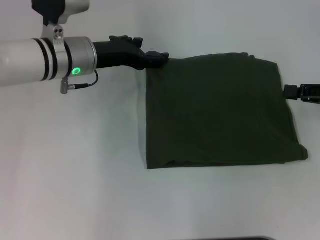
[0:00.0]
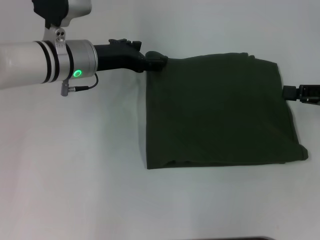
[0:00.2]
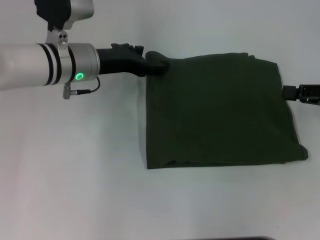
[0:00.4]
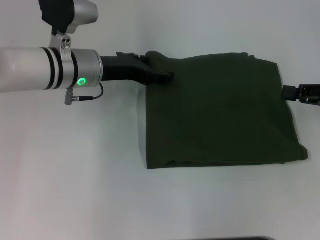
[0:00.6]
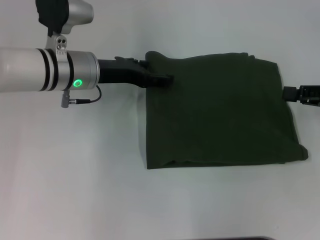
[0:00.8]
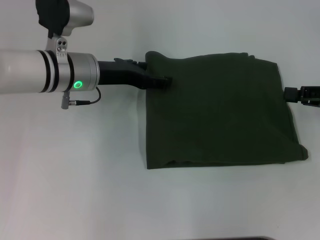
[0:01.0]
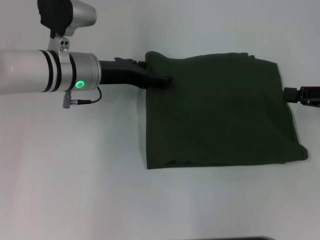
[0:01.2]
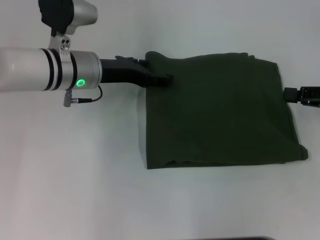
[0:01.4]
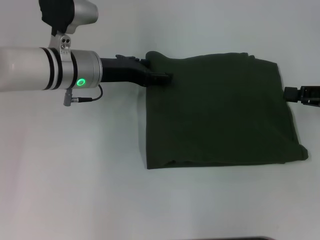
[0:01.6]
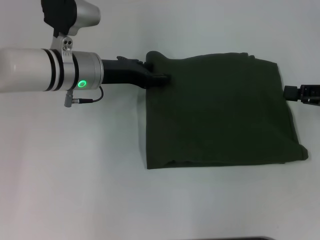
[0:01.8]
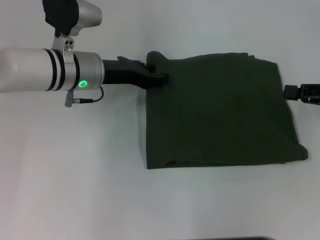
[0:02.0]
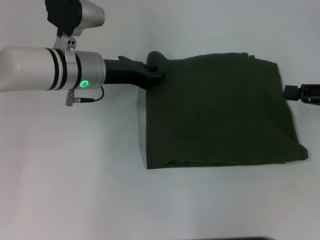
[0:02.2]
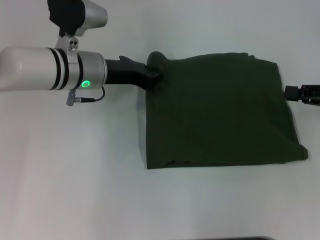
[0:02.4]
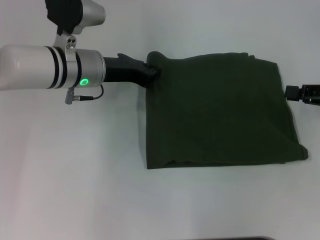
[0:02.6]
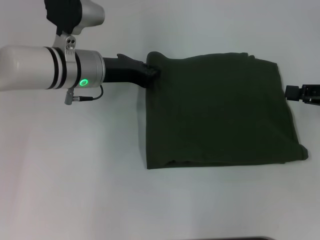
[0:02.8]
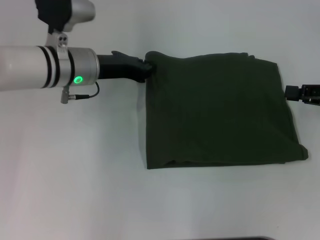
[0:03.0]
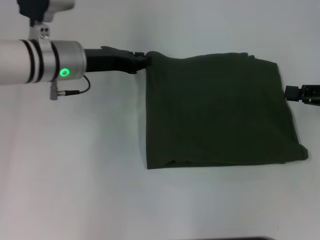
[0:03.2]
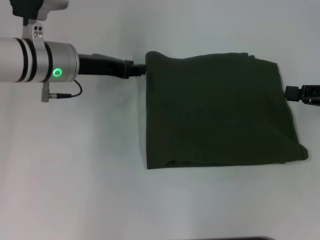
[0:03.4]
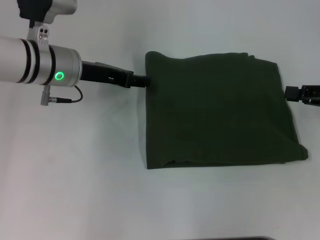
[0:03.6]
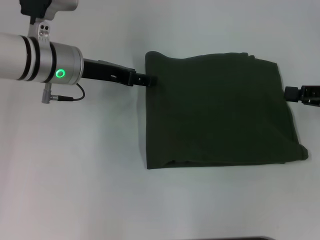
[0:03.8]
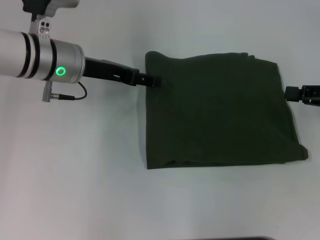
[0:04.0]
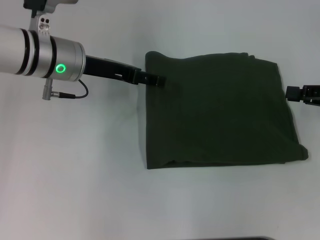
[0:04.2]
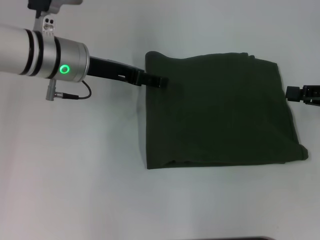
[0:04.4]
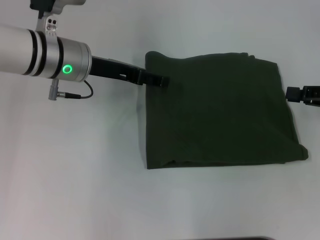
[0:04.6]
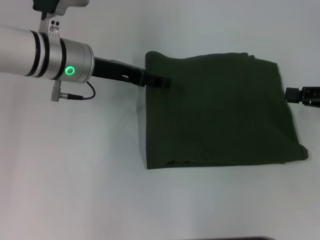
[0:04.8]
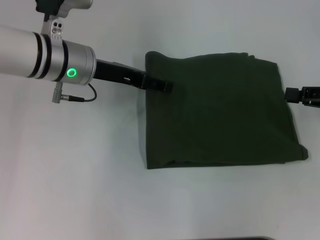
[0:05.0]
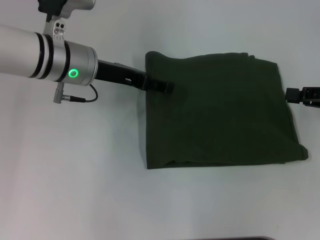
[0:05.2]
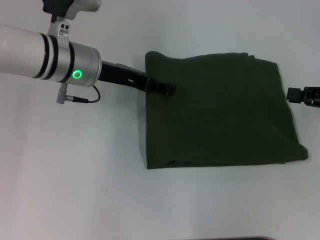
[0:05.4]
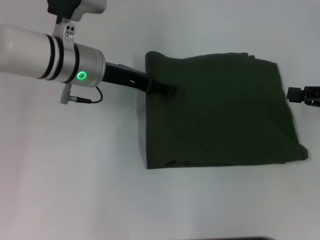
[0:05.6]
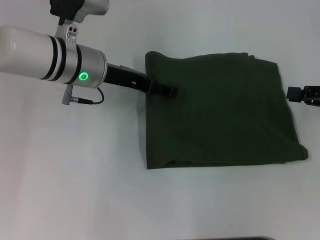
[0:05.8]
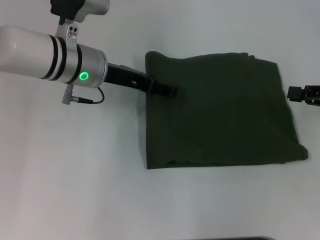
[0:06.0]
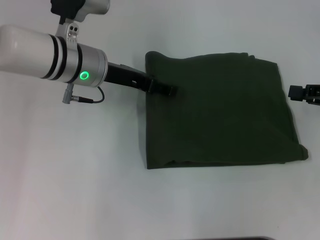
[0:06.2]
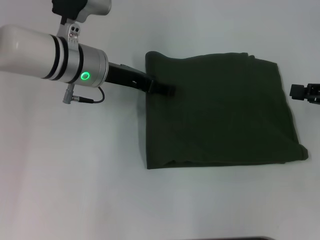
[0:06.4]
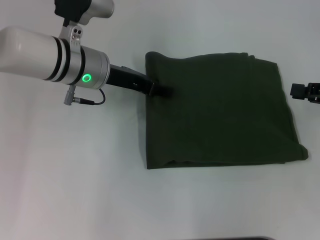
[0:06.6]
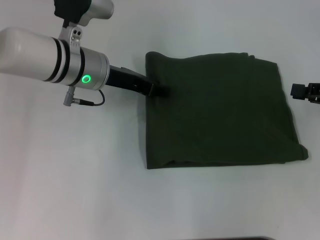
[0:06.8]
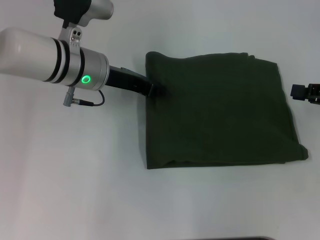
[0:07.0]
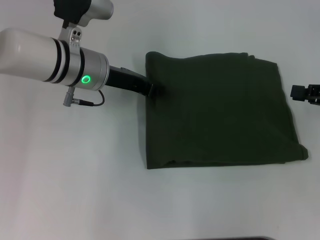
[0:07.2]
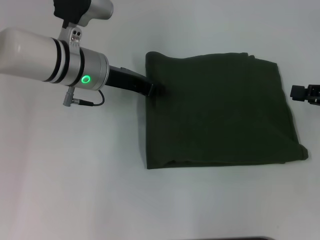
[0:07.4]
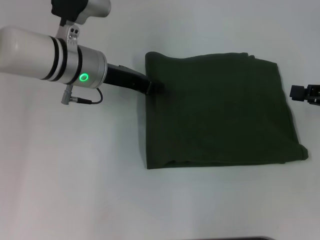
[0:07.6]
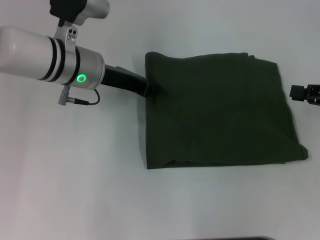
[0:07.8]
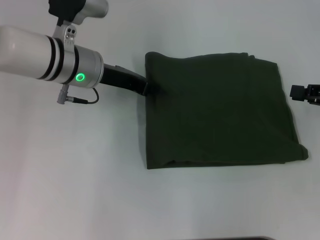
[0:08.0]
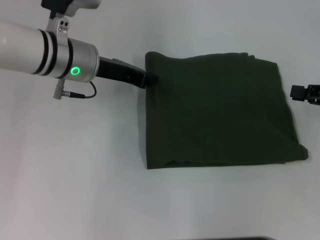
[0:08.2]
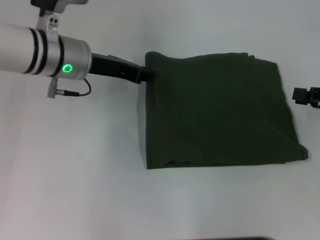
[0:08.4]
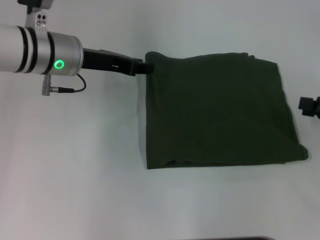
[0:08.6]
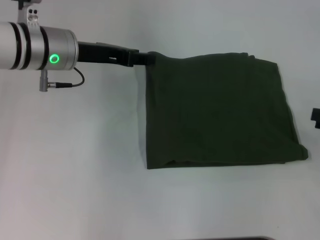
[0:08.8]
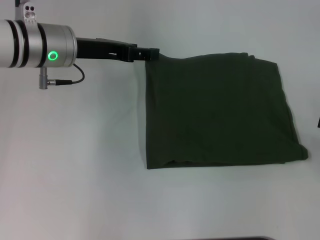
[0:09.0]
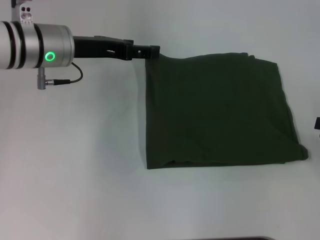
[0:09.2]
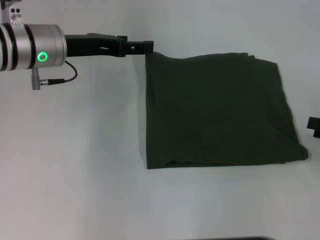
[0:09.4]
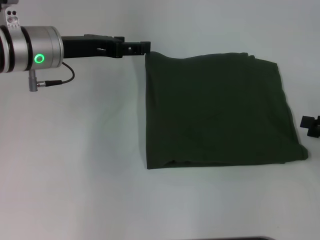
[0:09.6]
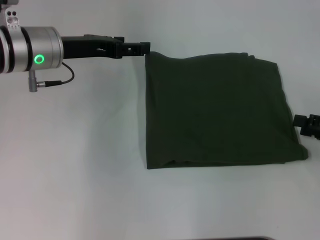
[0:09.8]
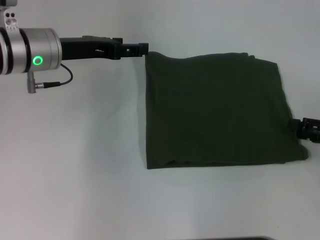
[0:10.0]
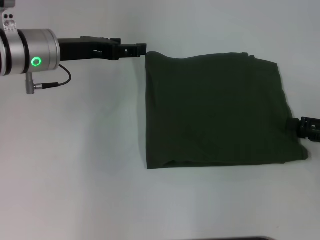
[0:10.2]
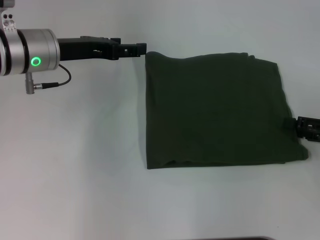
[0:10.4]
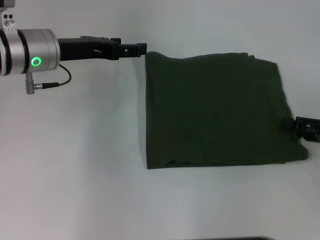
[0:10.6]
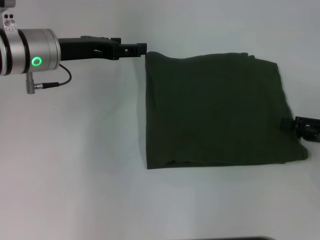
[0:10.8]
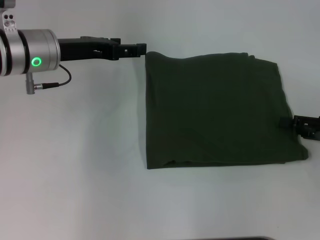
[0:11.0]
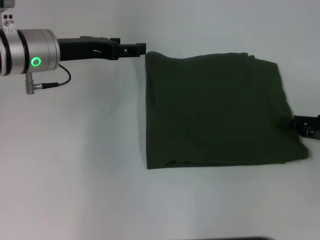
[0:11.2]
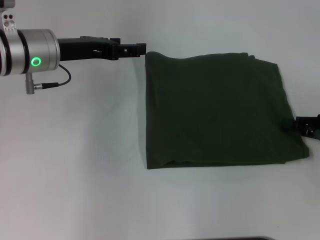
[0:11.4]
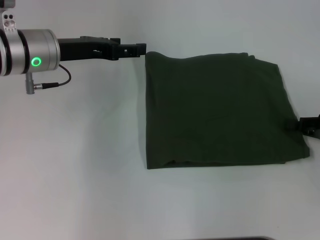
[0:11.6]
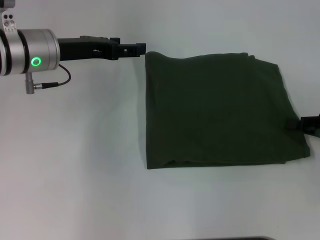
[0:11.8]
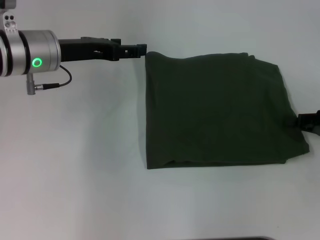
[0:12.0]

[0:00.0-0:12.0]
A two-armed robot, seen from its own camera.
0:00.0 to 0:01.6: The grippers make only small movements.
0:01.6 to 0:03.0: The left gripper closes up.
0:03.0 to 0:04.4: The left gripper opens up.
0:04.4 to 0:06.0: The grippers move only a little.
0:06.0 to 0:07.6: The left gripper closes its fingers.
0:07.6 to 0:09.0: The right gripper moves backward, roughly 5 cm, and opens. The left gripper opens.
0:09.0 to 0:10.4: The right gripper ends up roughly 5 cm from where it was; the left gripper opens.
0:10.4 to 0:12.0: The right gripper closes its fingers.

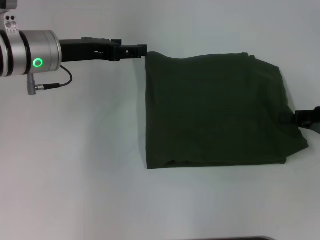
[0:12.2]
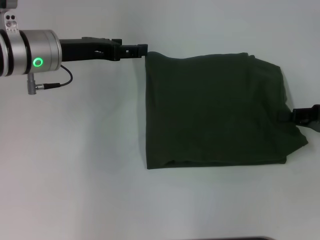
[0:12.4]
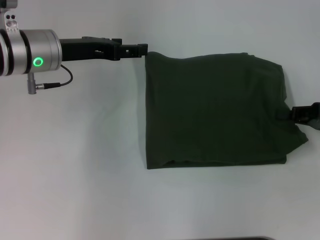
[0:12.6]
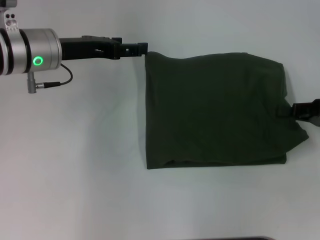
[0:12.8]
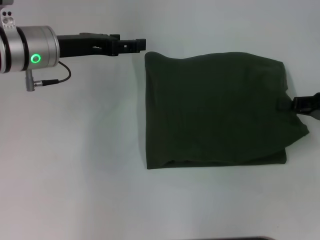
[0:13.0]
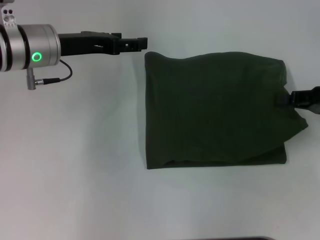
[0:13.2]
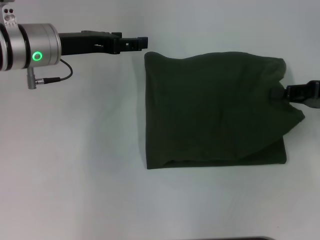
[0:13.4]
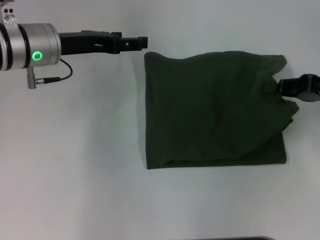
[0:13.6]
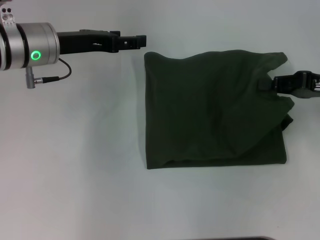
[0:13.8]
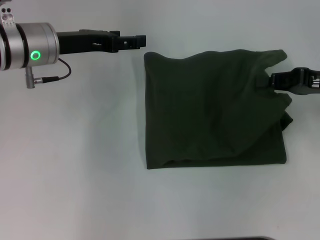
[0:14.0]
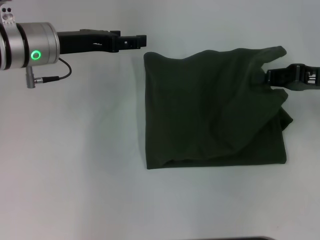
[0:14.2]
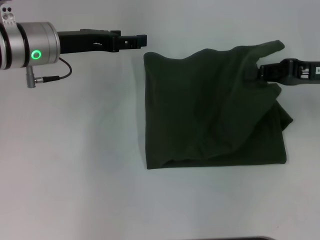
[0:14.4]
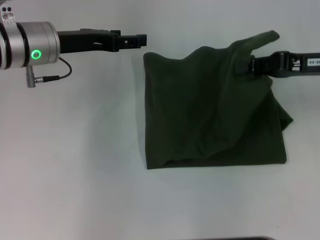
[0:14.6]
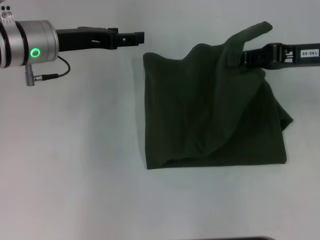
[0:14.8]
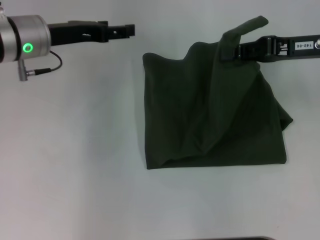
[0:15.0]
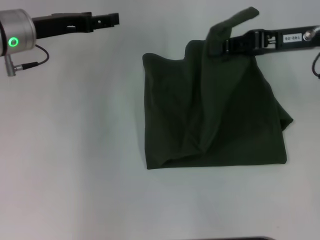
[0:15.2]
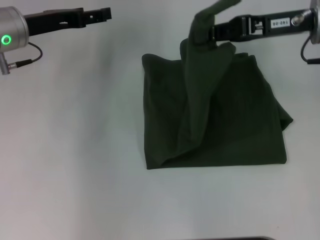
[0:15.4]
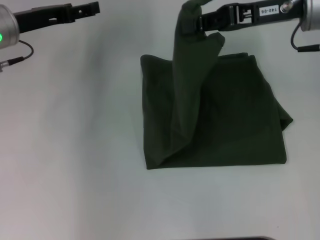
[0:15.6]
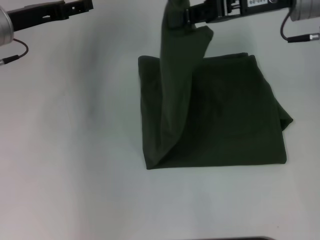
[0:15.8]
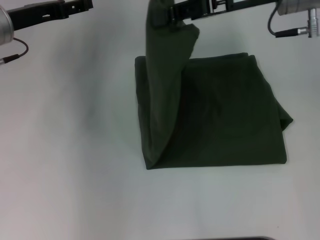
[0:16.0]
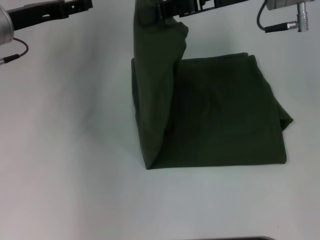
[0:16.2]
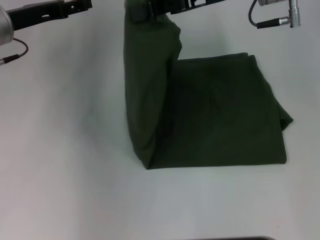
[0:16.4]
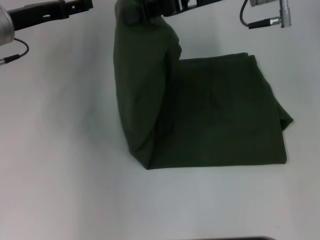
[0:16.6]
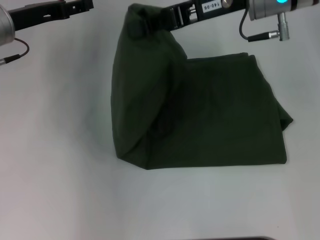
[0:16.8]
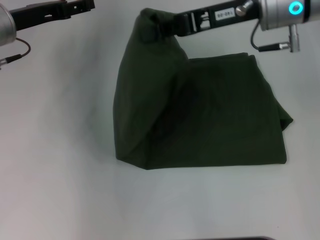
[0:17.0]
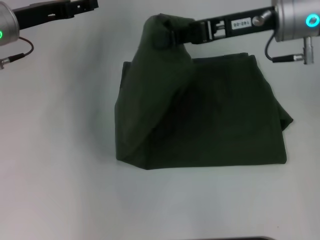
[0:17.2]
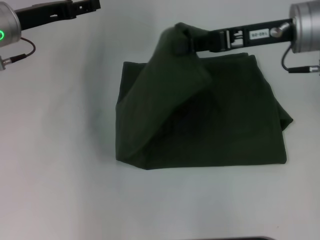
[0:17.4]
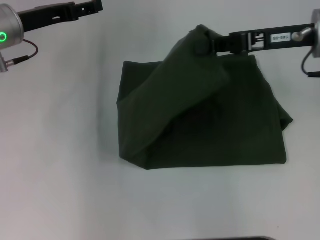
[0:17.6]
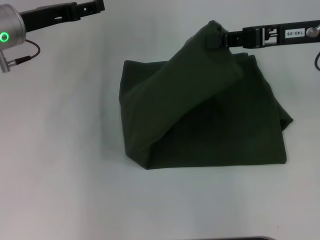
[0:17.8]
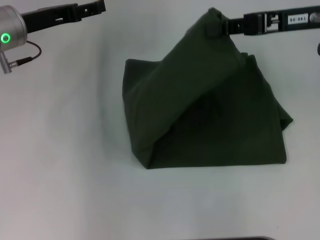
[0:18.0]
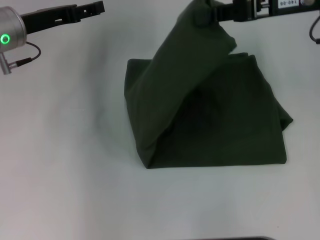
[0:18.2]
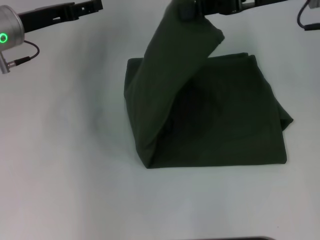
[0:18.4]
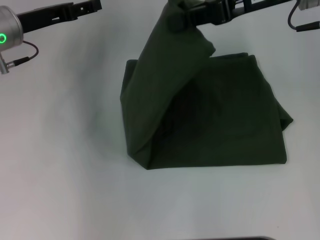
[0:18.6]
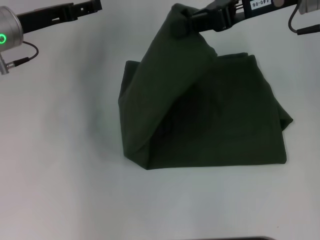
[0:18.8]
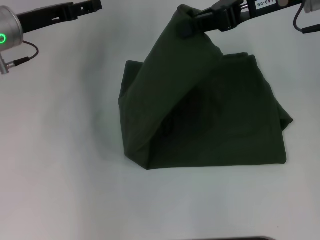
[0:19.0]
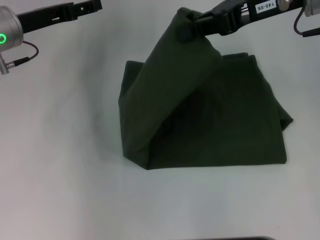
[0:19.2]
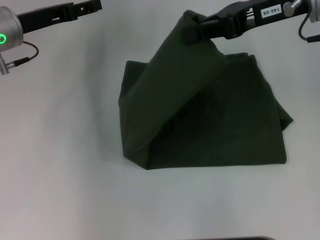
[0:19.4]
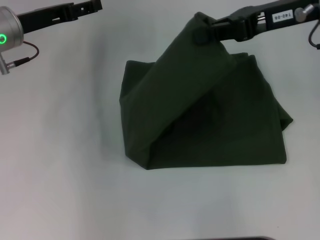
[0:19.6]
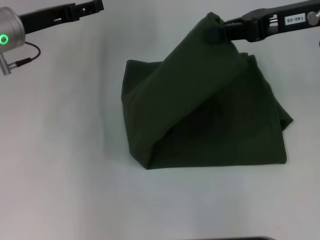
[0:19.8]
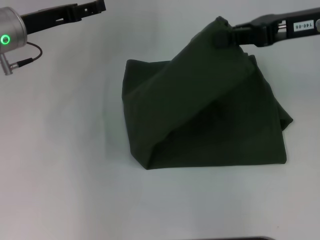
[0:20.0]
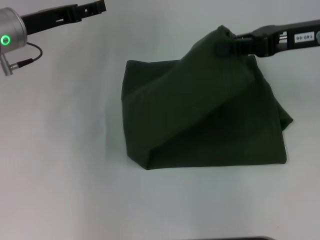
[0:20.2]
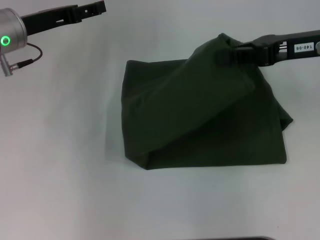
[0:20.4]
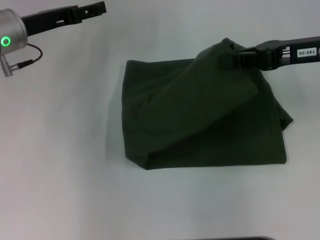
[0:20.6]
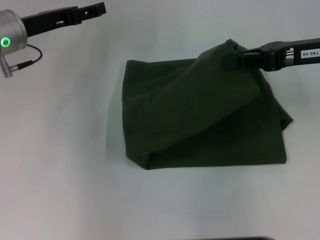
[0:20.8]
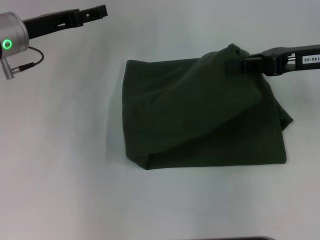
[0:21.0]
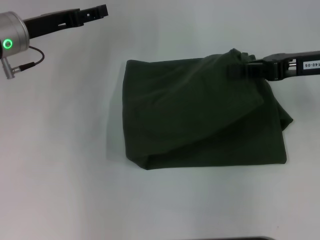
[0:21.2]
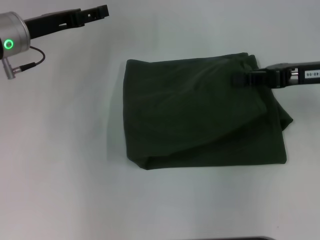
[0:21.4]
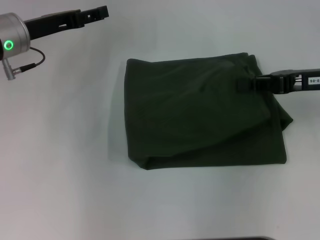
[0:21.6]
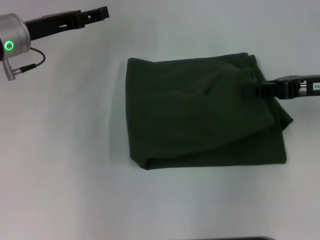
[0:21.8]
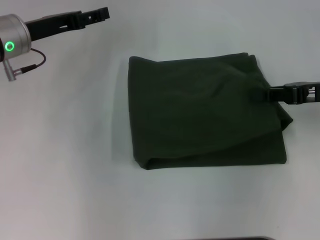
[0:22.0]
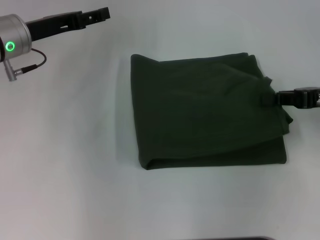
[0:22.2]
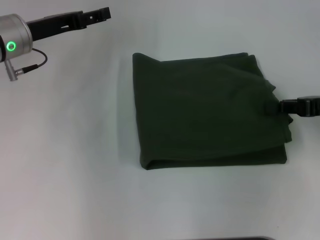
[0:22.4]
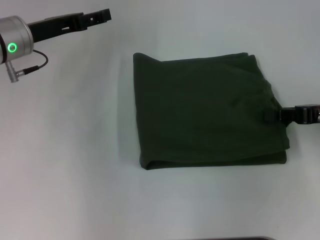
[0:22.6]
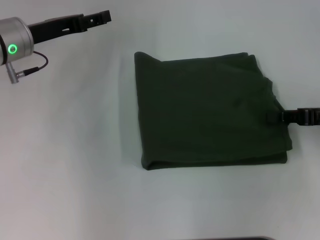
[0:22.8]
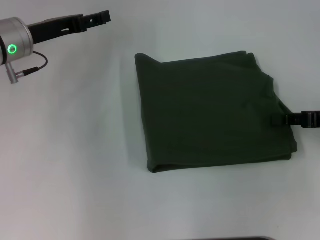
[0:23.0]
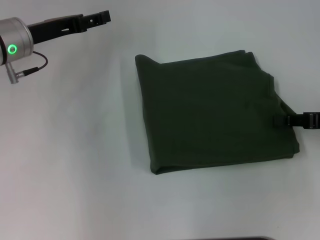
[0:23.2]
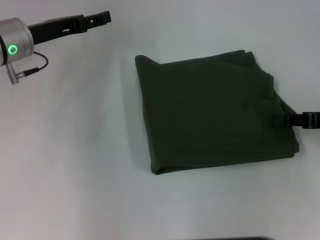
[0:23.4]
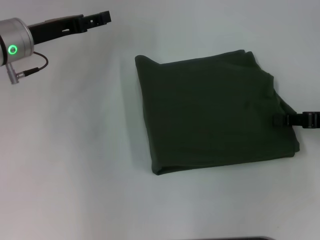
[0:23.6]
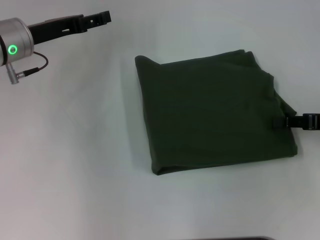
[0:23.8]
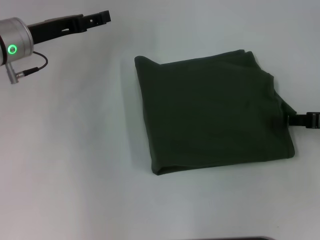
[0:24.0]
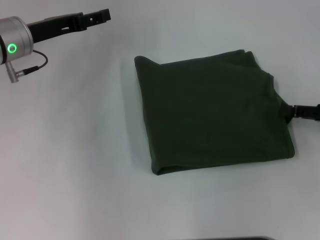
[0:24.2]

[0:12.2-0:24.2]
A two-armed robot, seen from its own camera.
0:12.2 to 0:13.8: The right gripper moves about 5 cm.
0:13.8 to 0:15.2: The right gripper shifts roughly 10 cm to the left and forward.
0:15.2 to 0:16.6: The right gripper goes roughly 15 cm to the left and upward.
0:16.6 to 0:18.2: The right gripper shifts some 10 cm to the right.
0:18.2 to 0:19.8: The grippers move only a little.
0:19.8 to 0:21.2: The right gripper shifts some 5 cm downward.
0:21.2 to 0:22.6: The right gripper is displaced downward and to the right by some 10 cm.
0:22.6 to 0:24.2: There are only small adjustments of the grippers.
